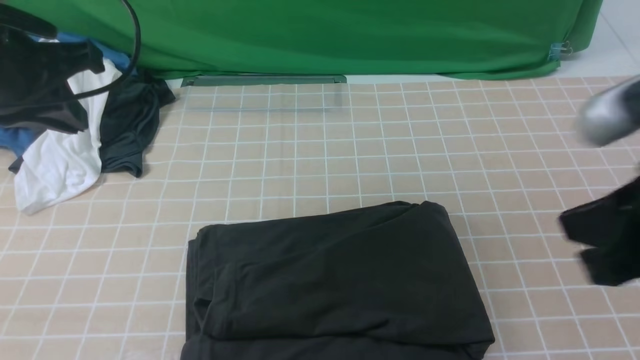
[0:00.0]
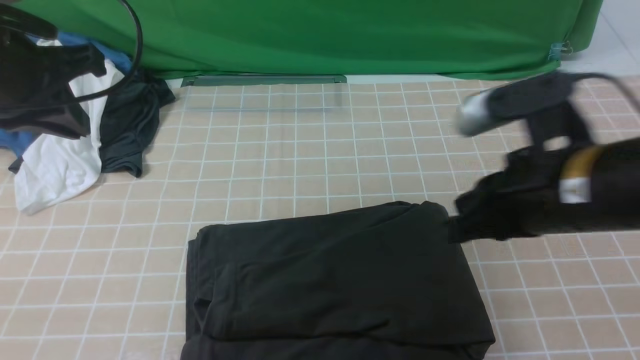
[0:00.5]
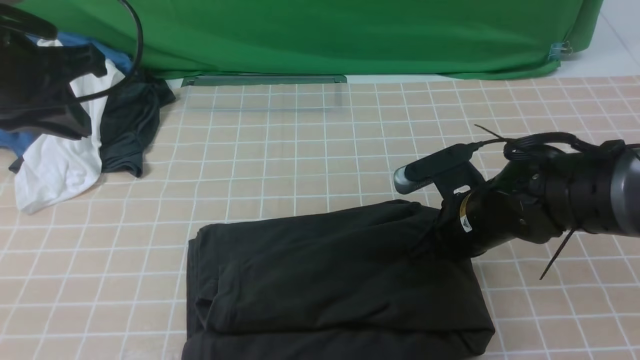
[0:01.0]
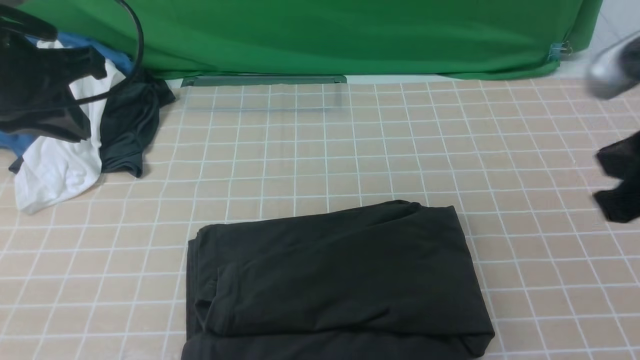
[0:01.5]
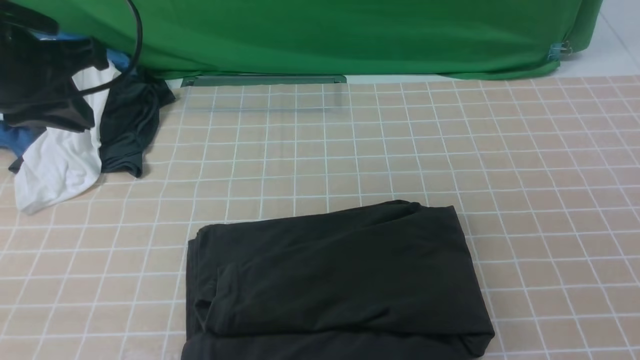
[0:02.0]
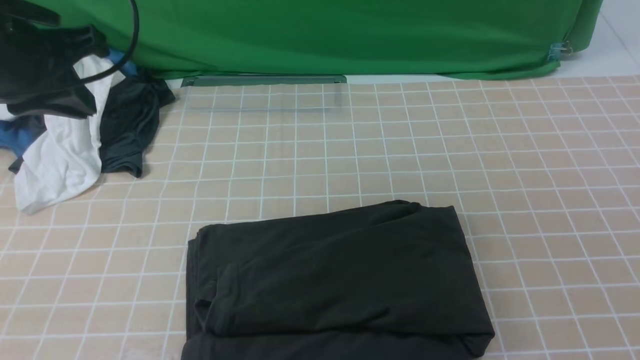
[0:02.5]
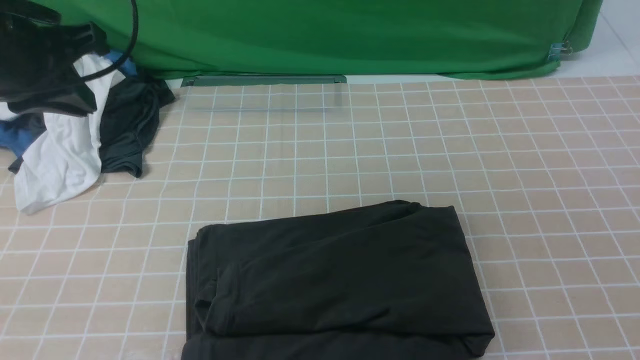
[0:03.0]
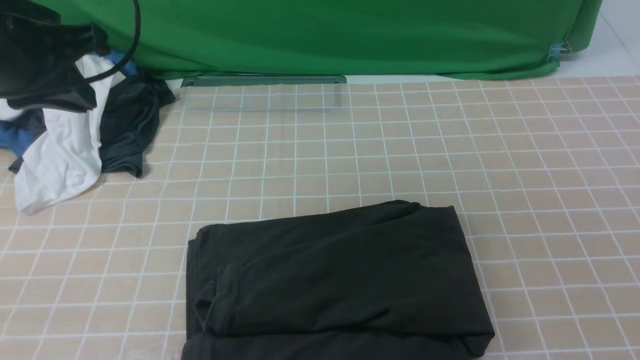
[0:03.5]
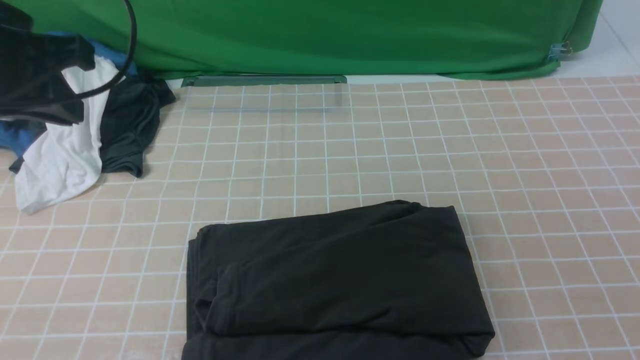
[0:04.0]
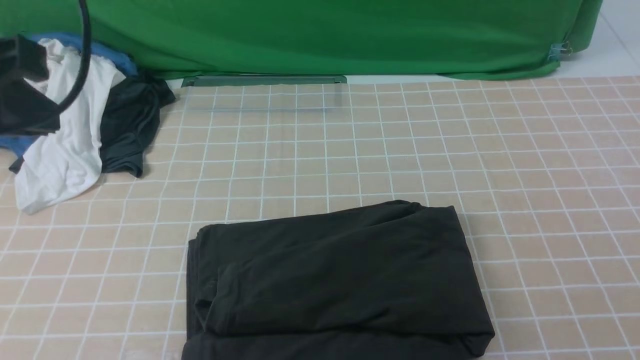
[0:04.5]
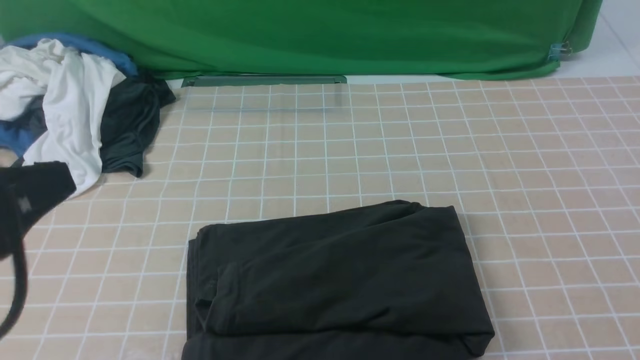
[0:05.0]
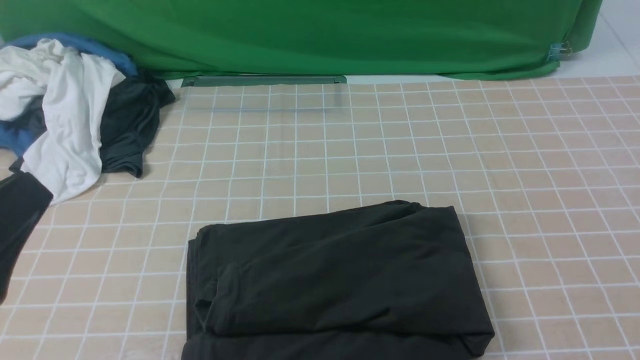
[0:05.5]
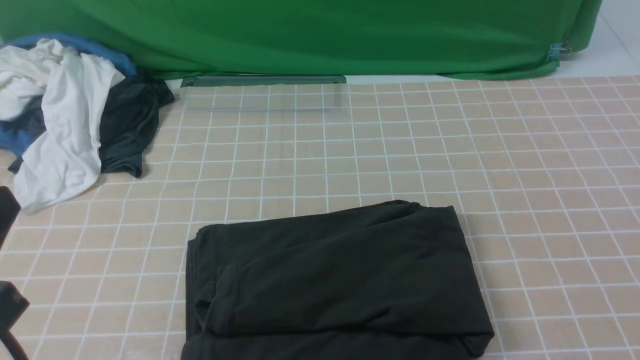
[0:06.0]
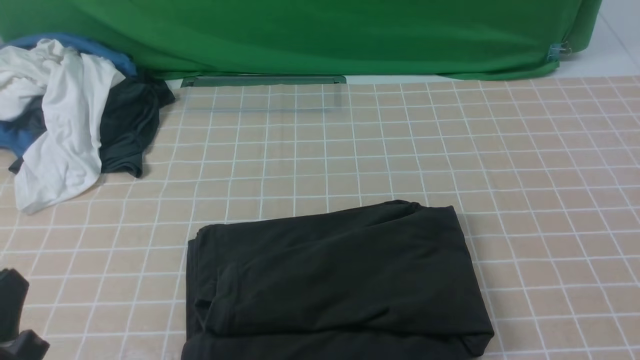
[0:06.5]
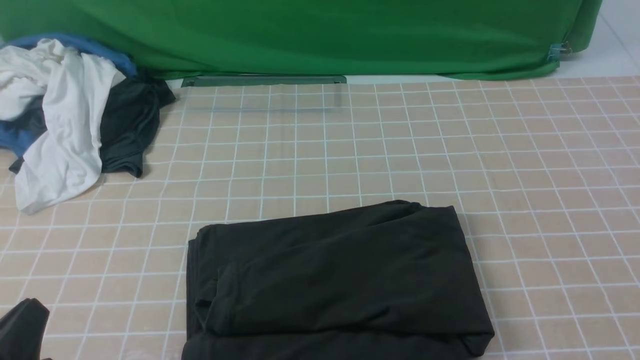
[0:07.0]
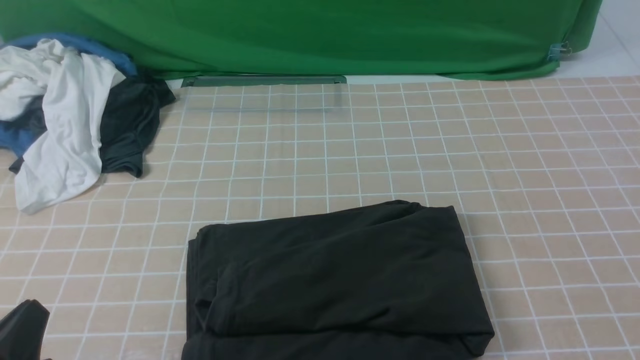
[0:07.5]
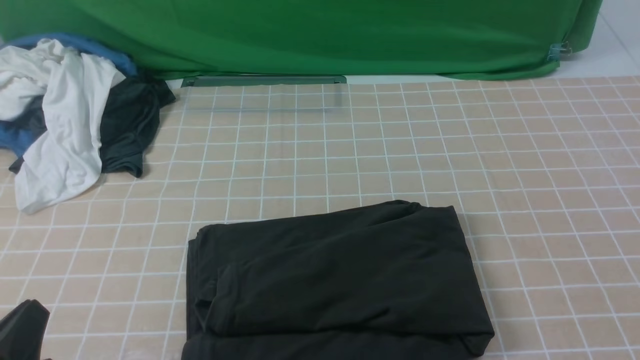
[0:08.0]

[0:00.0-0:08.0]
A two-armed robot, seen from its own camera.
0:00.0 to 0:02.0: The right gripper heads backward and to the right, covering some 10 cm.
0:04.0 to 0:06.0: The left gripper shifts approximately 20 cm backward and downward.
0:06.0 to 0:08.0: The left gripper goes approximately 10 cm downward.
